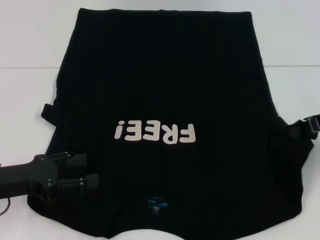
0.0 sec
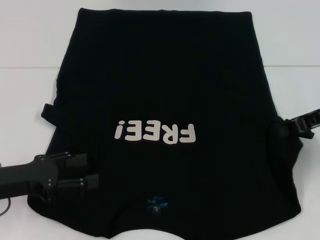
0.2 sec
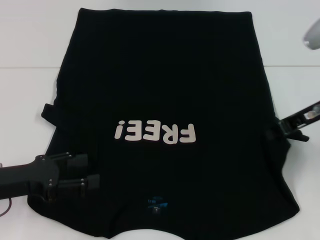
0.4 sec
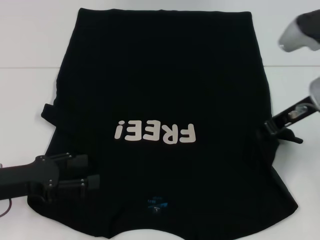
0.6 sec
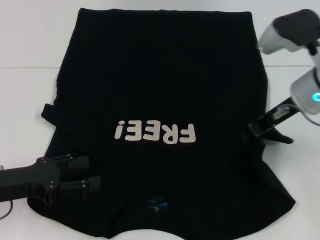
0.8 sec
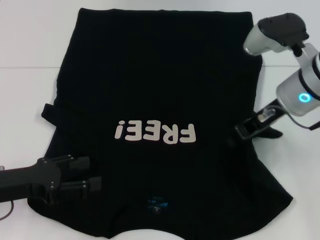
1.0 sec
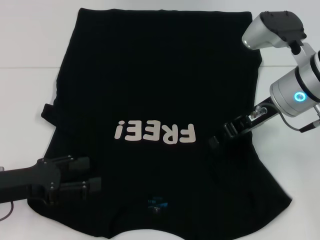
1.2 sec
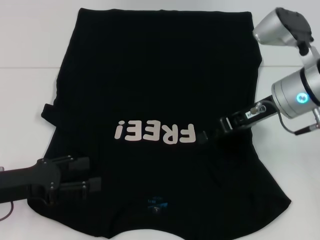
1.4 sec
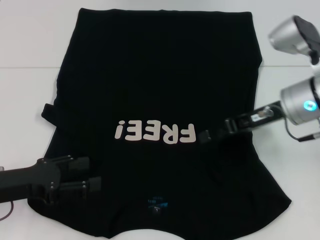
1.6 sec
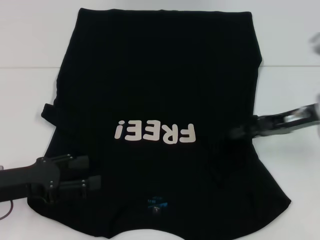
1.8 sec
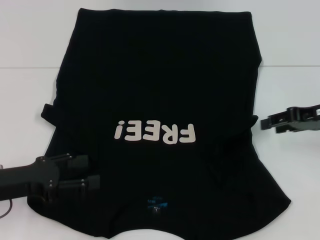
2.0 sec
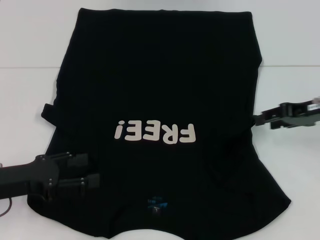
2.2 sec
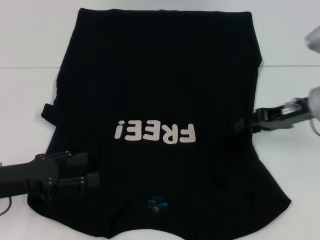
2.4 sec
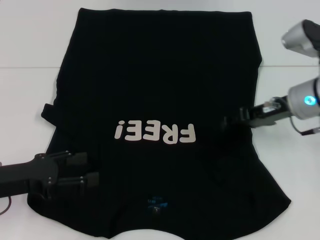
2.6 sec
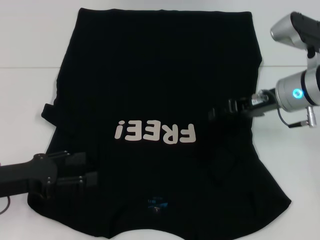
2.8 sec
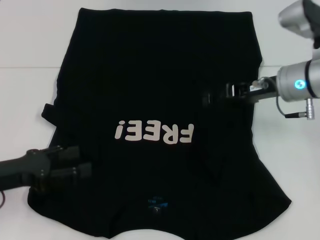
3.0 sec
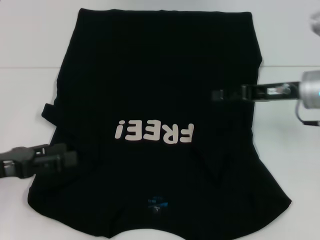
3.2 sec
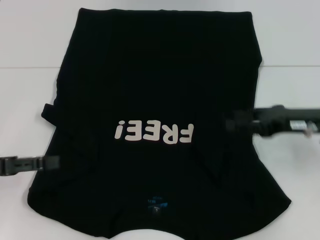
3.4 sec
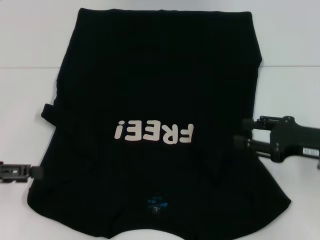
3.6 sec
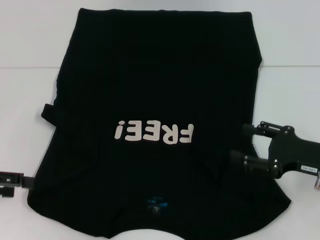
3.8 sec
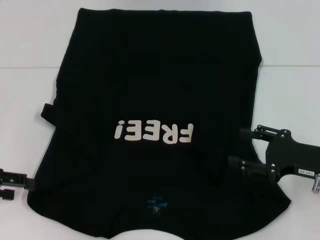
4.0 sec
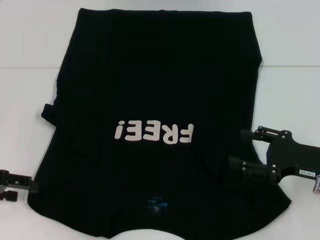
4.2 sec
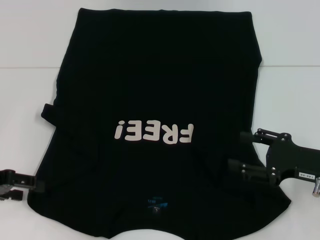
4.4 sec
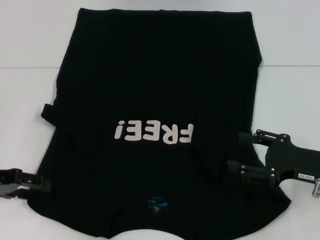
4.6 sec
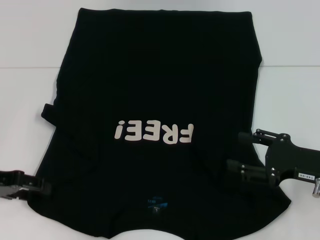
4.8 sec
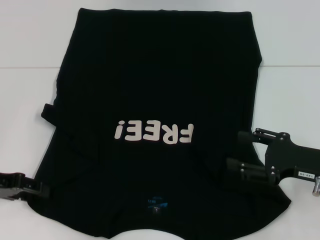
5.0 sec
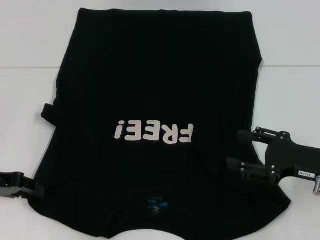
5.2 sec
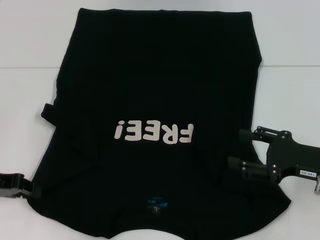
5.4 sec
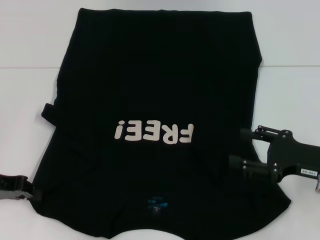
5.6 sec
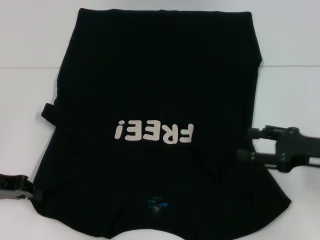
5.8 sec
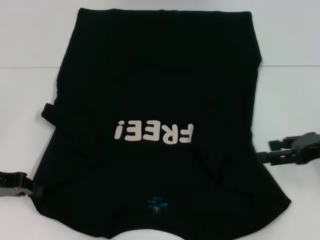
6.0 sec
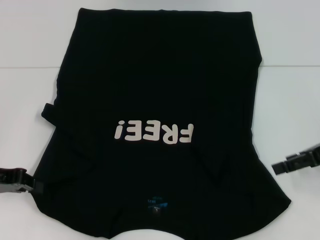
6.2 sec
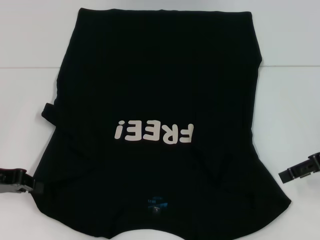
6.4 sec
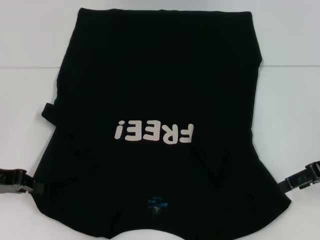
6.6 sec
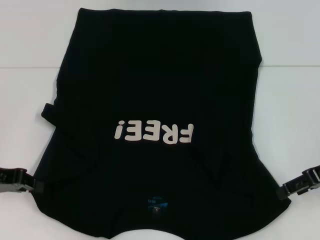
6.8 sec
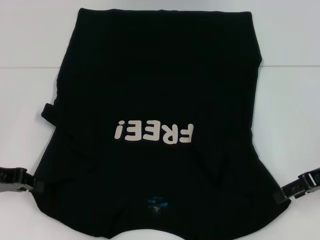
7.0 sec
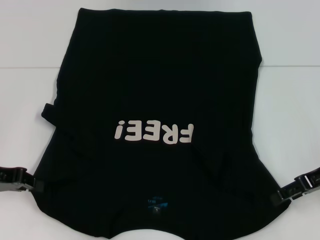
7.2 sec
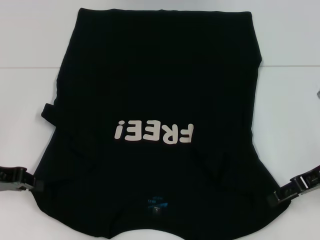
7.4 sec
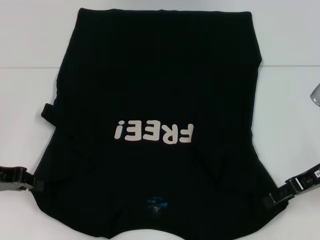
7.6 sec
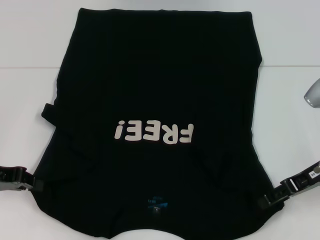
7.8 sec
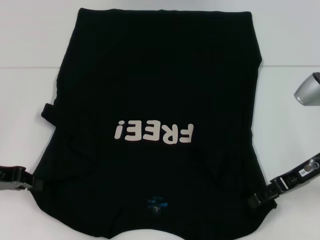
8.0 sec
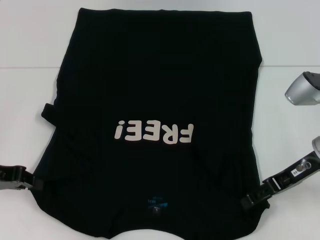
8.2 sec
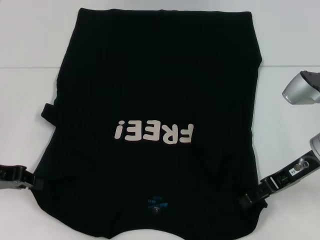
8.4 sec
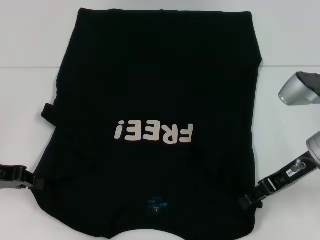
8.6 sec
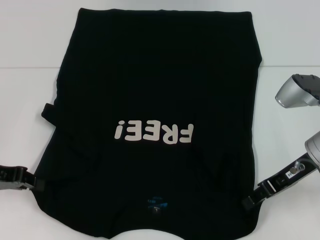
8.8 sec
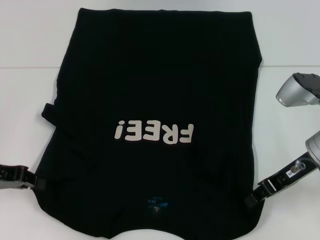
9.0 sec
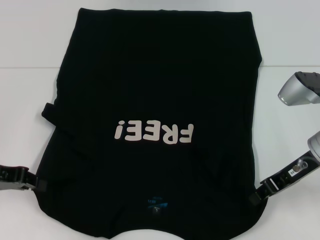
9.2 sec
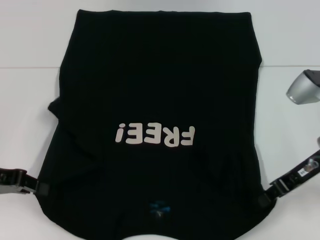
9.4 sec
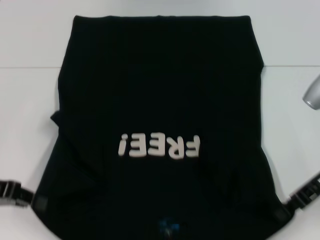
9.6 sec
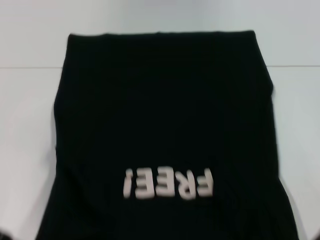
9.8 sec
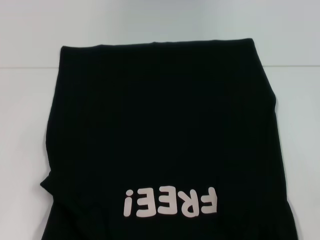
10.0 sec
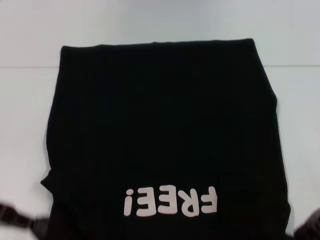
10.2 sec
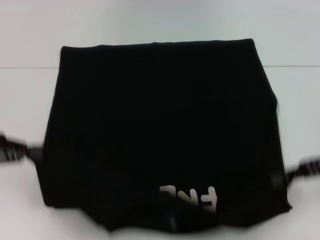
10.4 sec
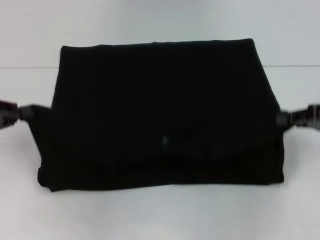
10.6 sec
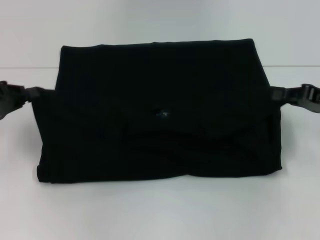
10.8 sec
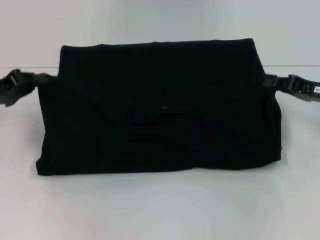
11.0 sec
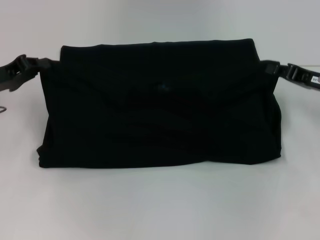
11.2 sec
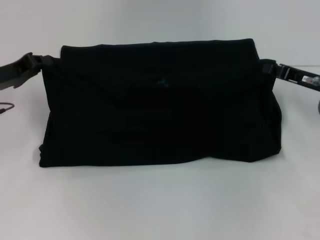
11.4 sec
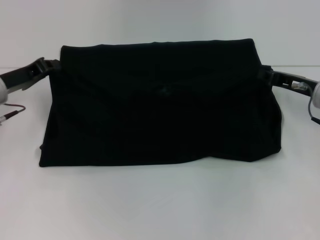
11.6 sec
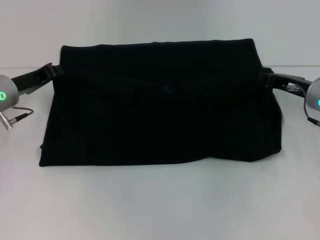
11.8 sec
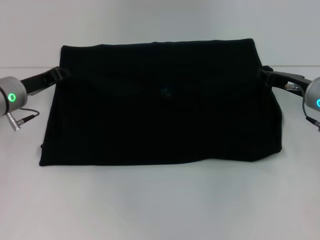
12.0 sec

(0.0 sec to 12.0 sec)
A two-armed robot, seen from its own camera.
Step, 0.0 sec - 3.2 sec: Fold the bottom right sleeve with your right hand.
Step, 3.4 sec - 6.8 sec: Grab the bottom left corner with your left hand.
Step, 7.0 sec - 8.4 sec: Grab the bottom right corner with your right hand.
0.0 sec - 1.6 sec: The right gripper moves to the left, roughly 10 cm, and opens.
1.6 sec - 3.0 sec: The right gripper goes to the right and returns, roughly 10 cm each way.
3.0 sec - 4.4 sec: The left gripper shifts by some 5 cm. The right gripper moves backward, to the right and downward, approximately 15 cm.
4.4 sec - 6.0 sec: The left gripper closes up. The right gripper heads upward, covering about 5 cm.
7.6 sec - 9.0 sec: The right gripper closes.
9.0 sec - 10.4 sec: The right gripper is displaced to the right by roughly 10 cm, and closes up.
10.4 sec - 12.0 sec: The left gripper shifts approximately 15 cm forward, to the right and downward. The right gripper shifts some 10 cm forward.

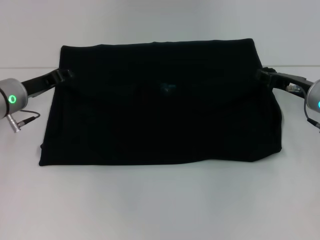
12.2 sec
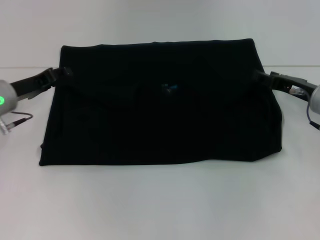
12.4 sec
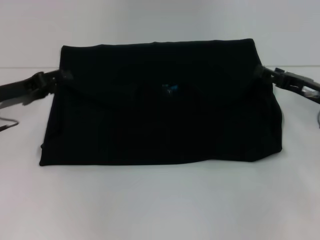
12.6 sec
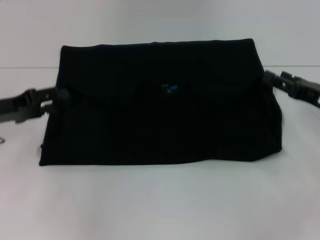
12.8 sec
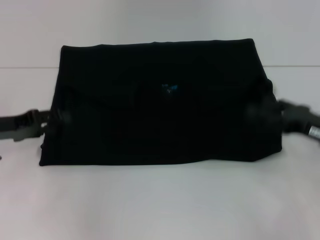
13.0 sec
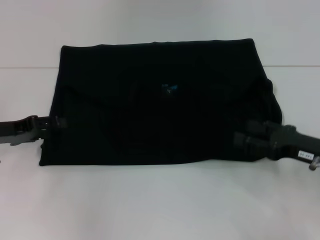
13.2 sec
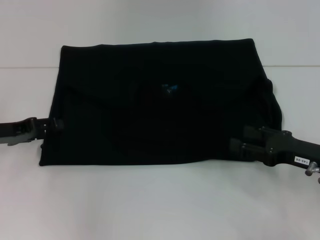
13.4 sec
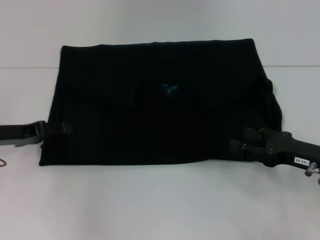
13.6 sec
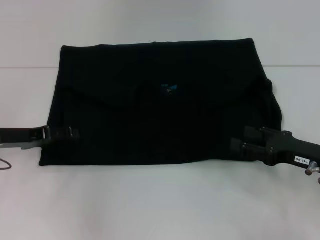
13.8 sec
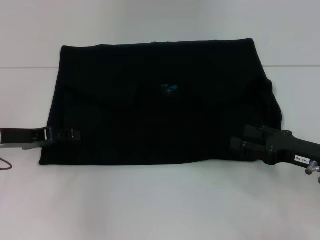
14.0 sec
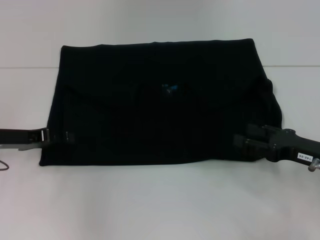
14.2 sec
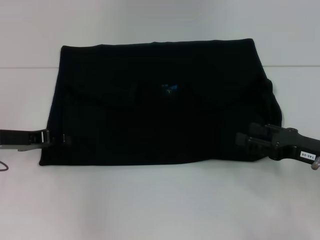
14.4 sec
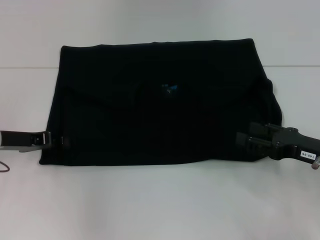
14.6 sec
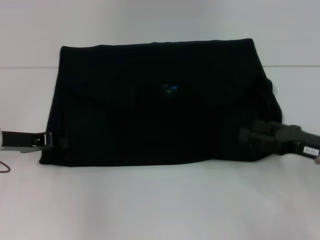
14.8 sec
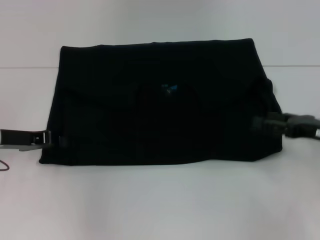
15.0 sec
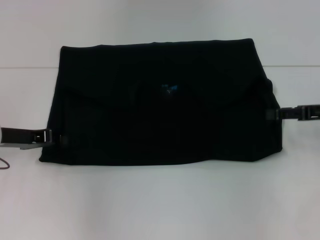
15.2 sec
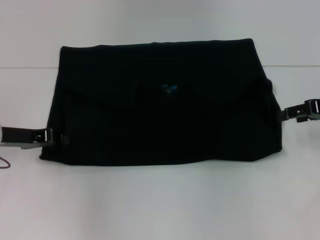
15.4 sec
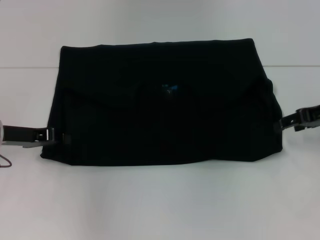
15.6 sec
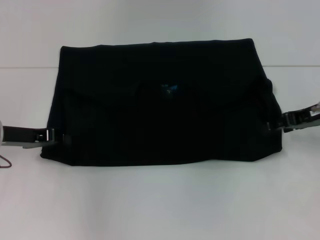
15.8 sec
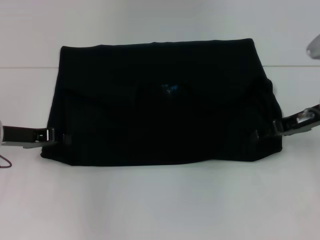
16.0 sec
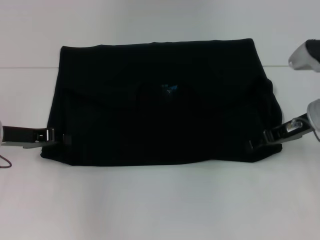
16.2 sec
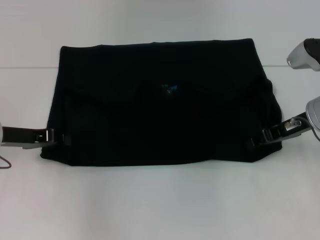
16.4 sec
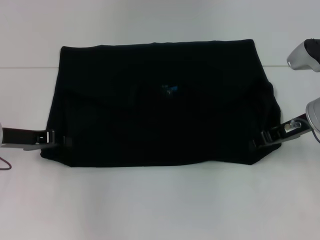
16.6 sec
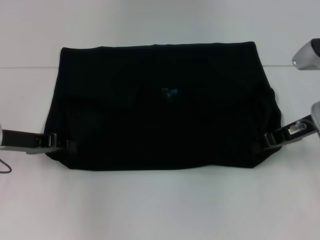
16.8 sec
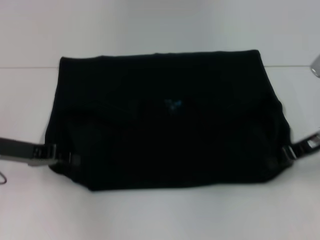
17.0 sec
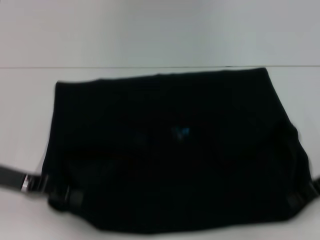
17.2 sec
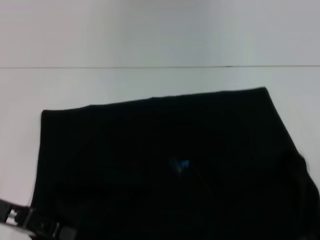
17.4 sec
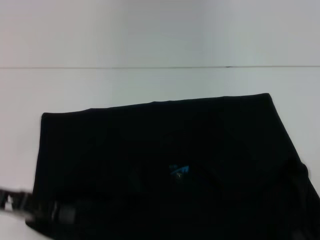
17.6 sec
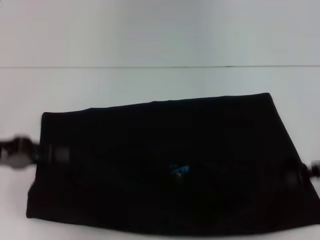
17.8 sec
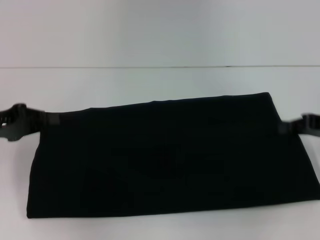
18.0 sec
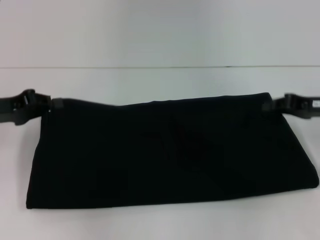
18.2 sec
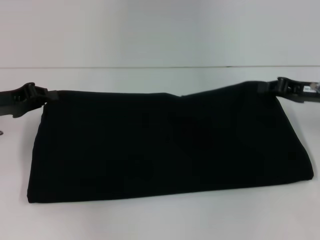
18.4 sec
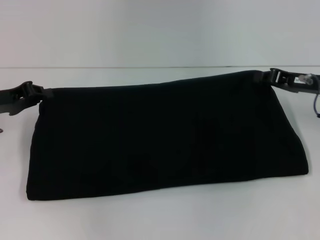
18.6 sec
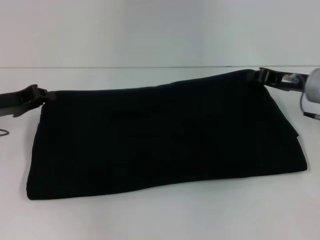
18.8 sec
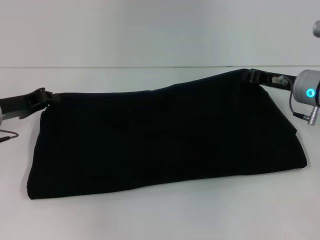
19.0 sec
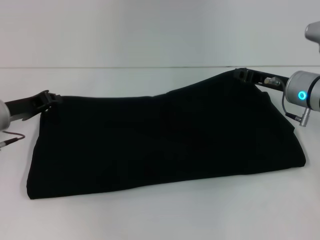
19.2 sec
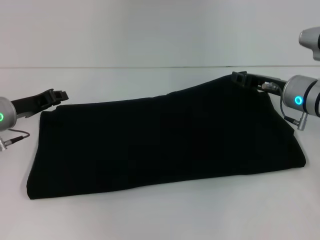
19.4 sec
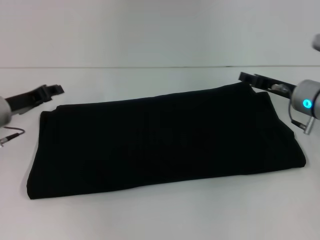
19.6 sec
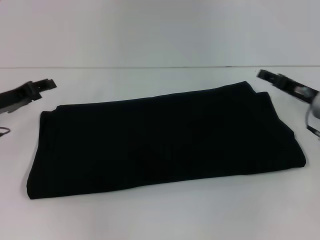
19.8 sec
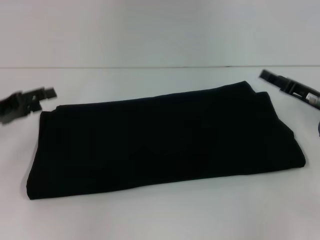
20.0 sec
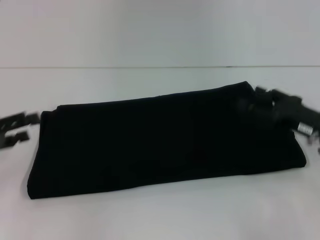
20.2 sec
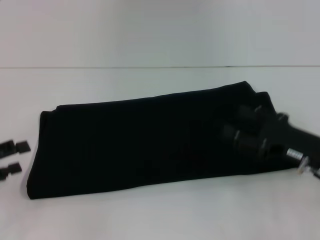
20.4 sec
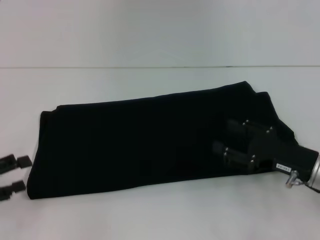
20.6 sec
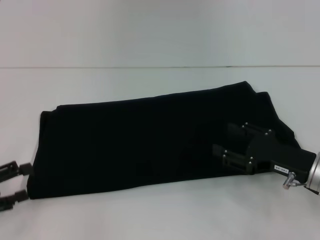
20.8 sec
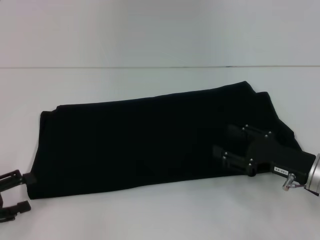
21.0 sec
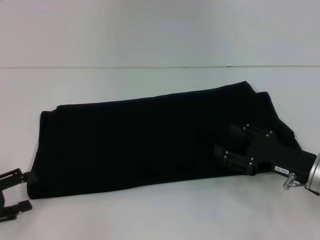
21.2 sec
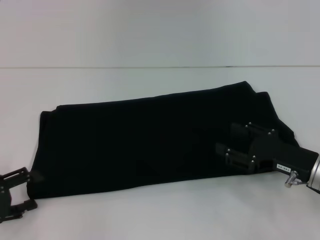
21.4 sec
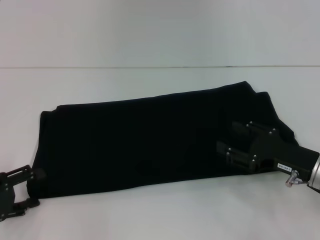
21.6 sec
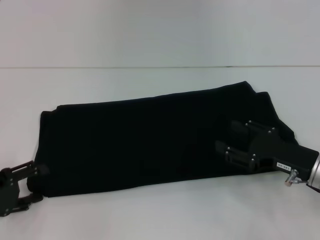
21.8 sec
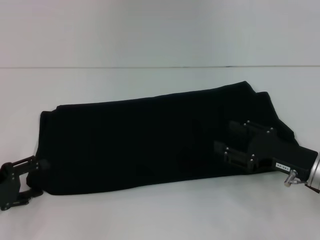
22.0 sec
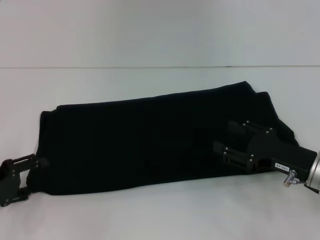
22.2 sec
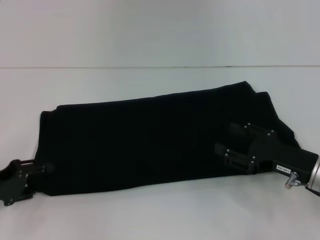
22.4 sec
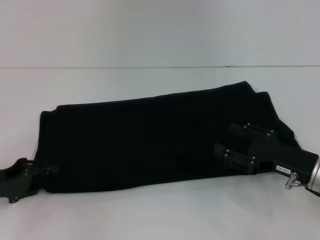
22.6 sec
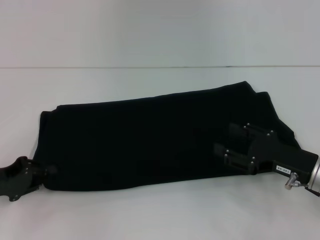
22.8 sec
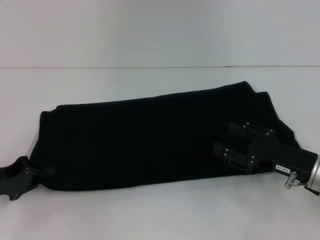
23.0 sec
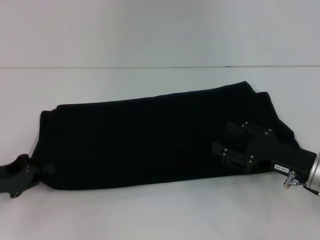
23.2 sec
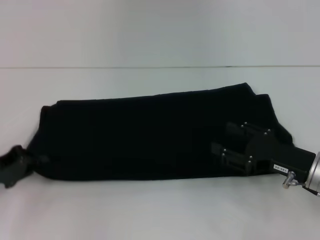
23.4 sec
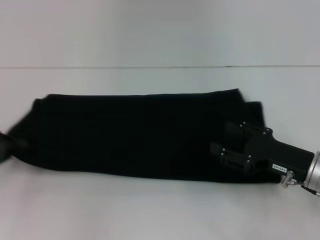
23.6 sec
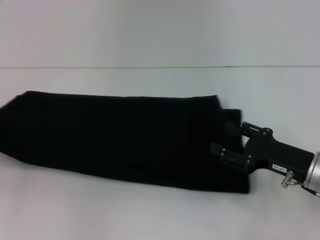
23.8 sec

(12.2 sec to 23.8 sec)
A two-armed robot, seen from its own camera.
Step, 12.2 sec - 16.4 sec: Fold the clothes with your left hand.
Step, 12.2 sec - 16.4 sec: Fold the clothes with your right hand.
Step, 16.6 sec - 17.4 sec: Pull the clothes with your left hand.
Step, 16.6 sec - 17.4 sec: Pull the clothes with your right hand.
Step, 17.6 sec - 20.0 sec: Fold the clothes with your right hand.
12.2 sec - 13.6 sec: The left gripper travels backward by some 5 cm, and opens its fingers, while the right gripper travels backward by some 10 cm, and opens its fingers.
13.6 sec - 15.0 sec: The right gripper shifts by roughly 5 cm. Meanwhile the left gripper closes.
15.0 sec - 16.6 sec: The right gripper goes approximately 10 cm to the left and forward, and closes.
16.6 sec - 18.0 sec: The right gripper moves to the right, some 10 cm; the left gripper ends up approximately 5 cm from where it was.
18.0 sec - 19.4 sec: The left gripper is displaced forward, downward and to the right by about 10 cm; the right gripper moves to the left and forward, about 10 cm.
19.4 sec - 21.0 sec: The left gripper travels backward and to the left by roughly 20 cm, and opens, while the right gripper shifts roughly 15 cm backward, and opens its fingers.
21.0 sec - 22.4 sec: The left gripper moves forward, some 5 cm.
22.4 sec - 23.8 sec: The left gripper heads to the left, covering approximately 5 cm, and closes.
